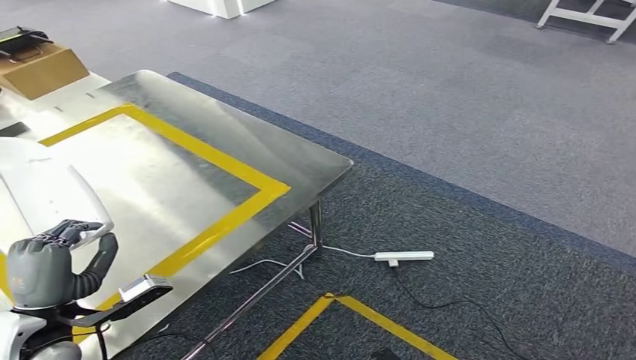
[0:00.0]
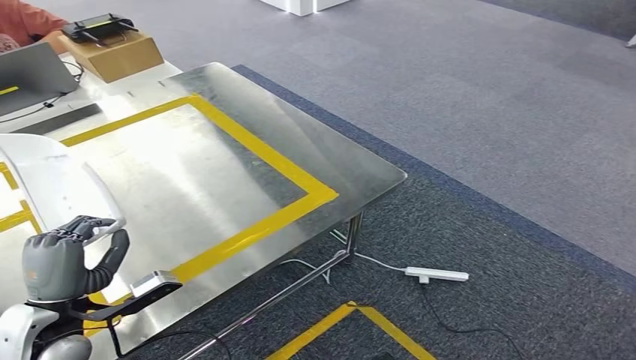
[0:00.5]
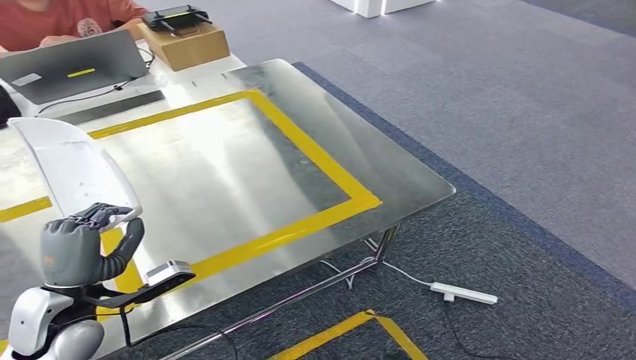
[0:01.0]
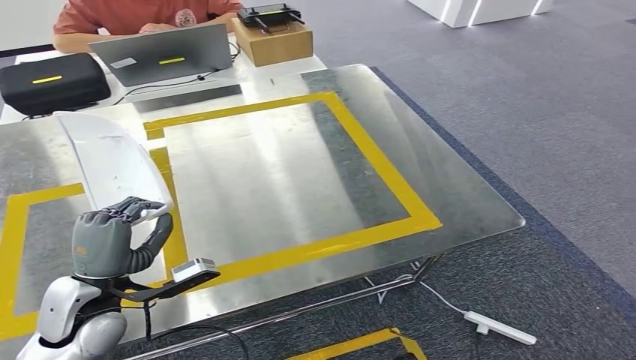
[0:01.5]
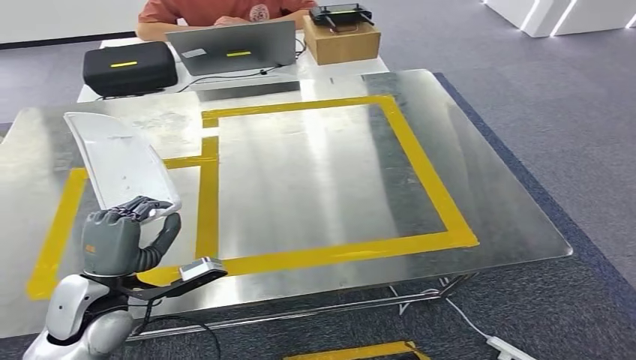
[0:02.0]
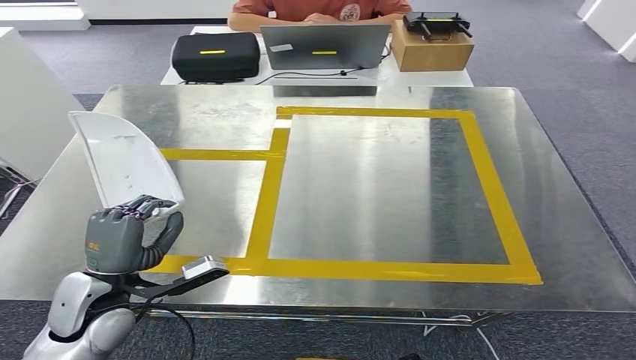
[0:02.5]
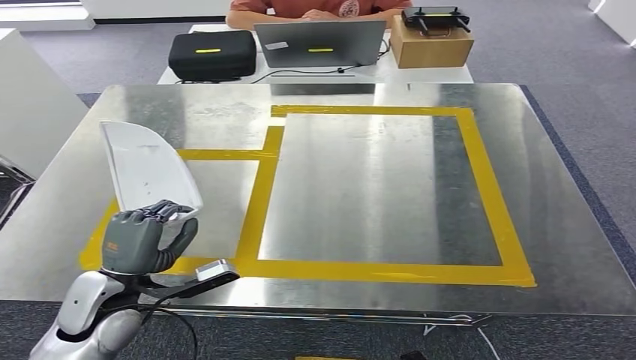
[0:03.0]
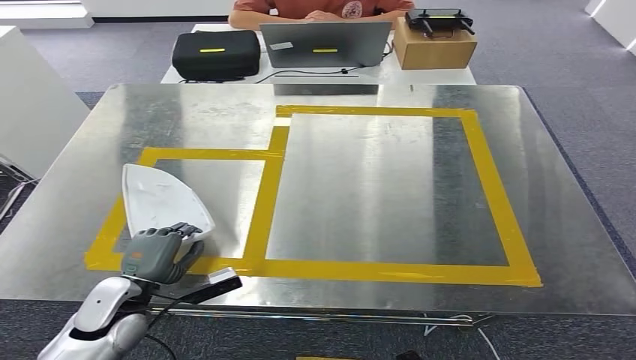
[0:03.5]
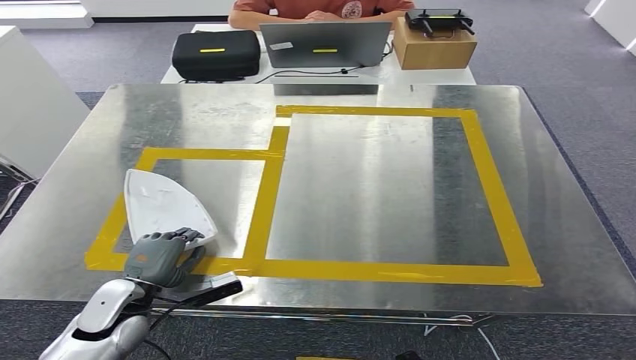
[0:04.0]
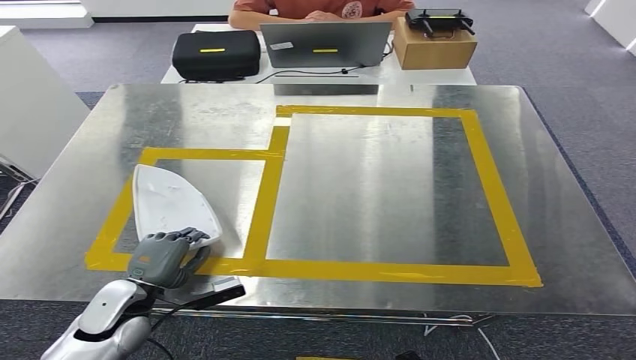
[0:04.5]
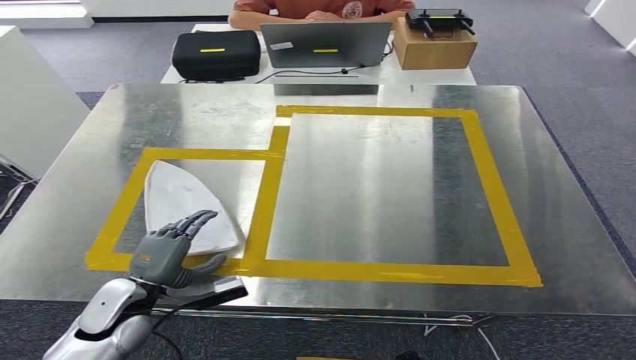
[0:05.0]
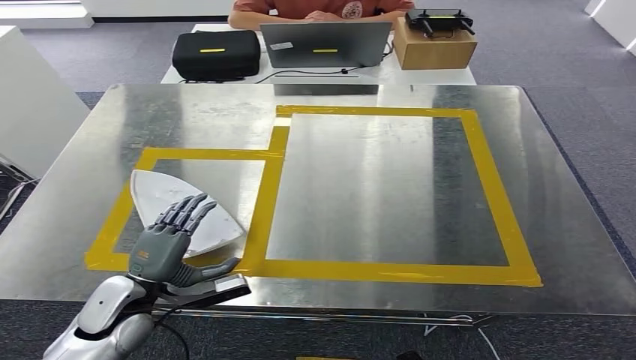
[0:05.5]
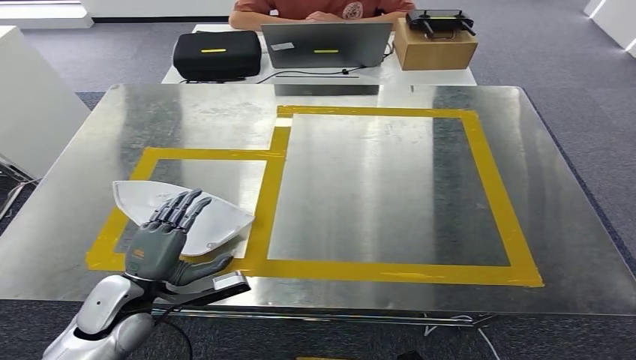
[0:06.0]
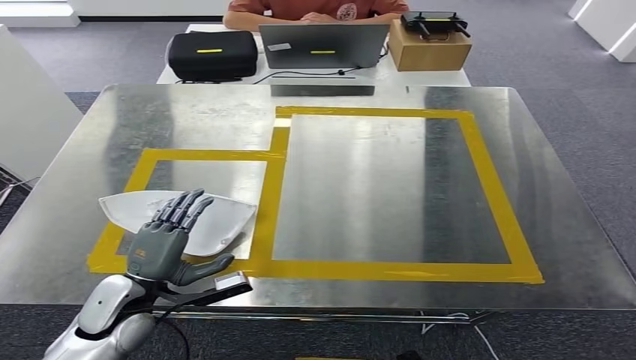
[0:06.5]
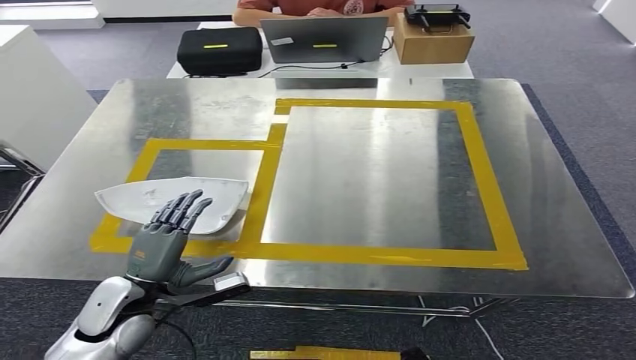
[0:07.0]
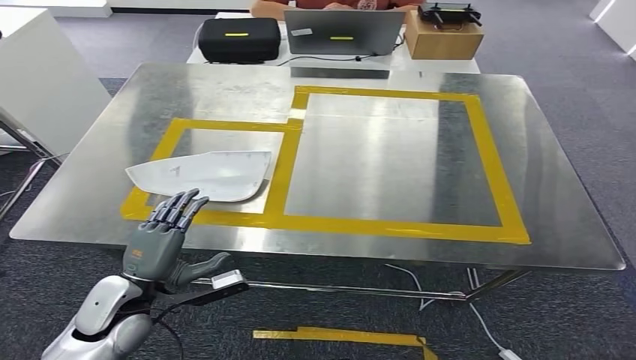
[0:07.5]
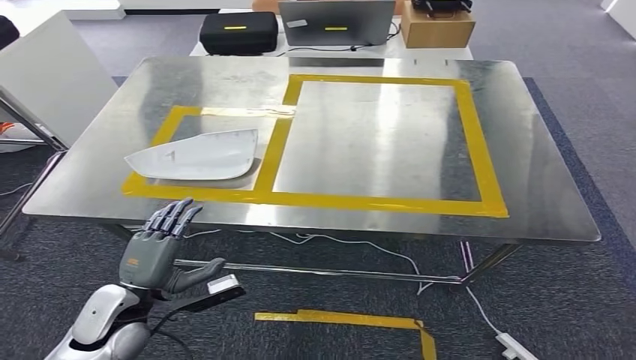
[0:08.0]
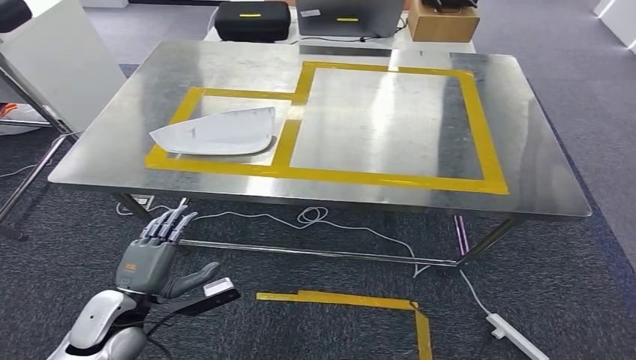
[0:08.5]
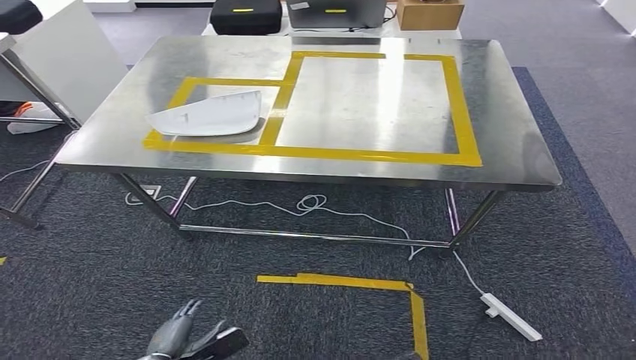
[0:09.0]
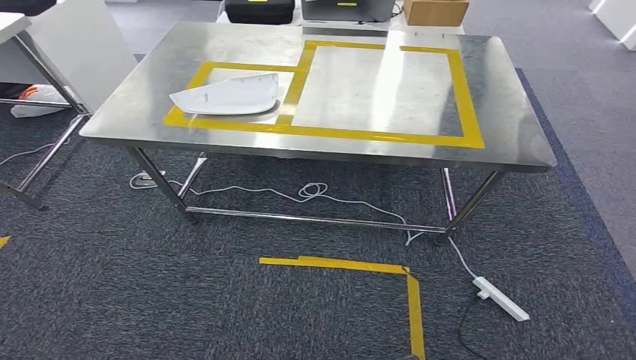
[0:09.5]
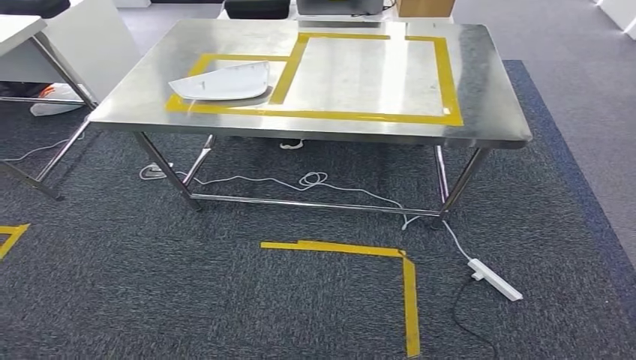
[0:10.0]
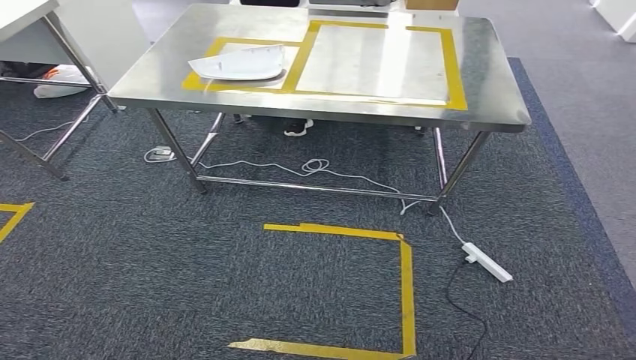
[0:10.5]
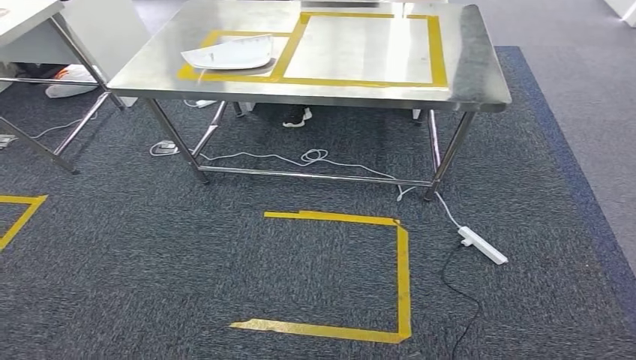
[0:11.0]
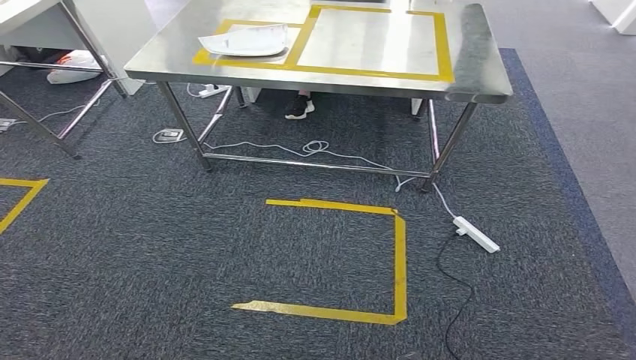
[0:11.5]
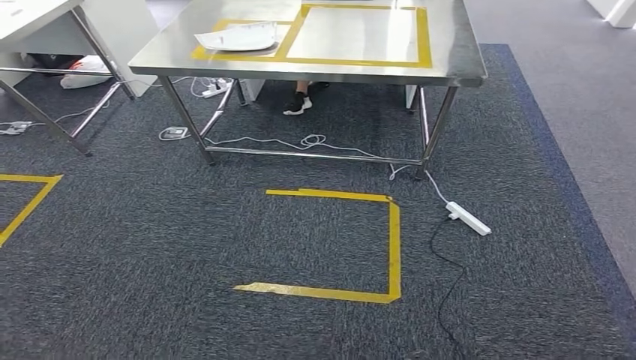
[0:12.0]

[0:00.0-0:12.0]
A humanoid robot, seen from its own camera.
Step, 0:00.0 to 0:03.0: Move the small parts to the workbench.
Step, 0:03.5 to 0:07.0: Insert the small parts into the corresponding holes on the workbench.
0:04.0 to 0:06.0: The hands make only small movements.

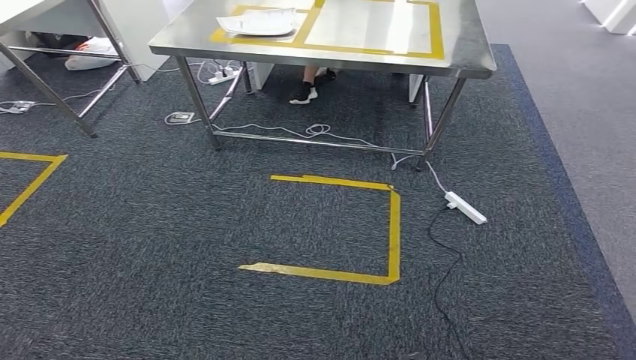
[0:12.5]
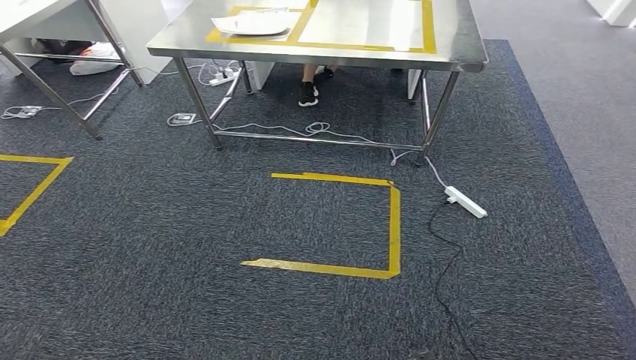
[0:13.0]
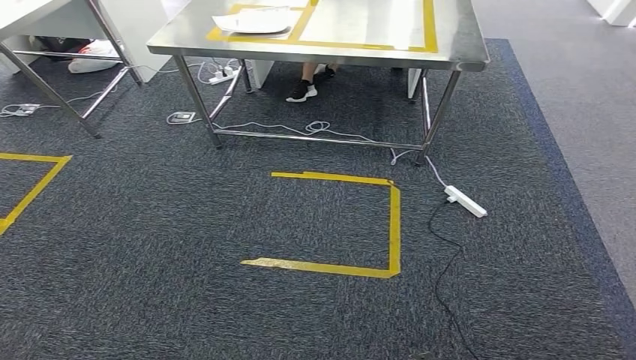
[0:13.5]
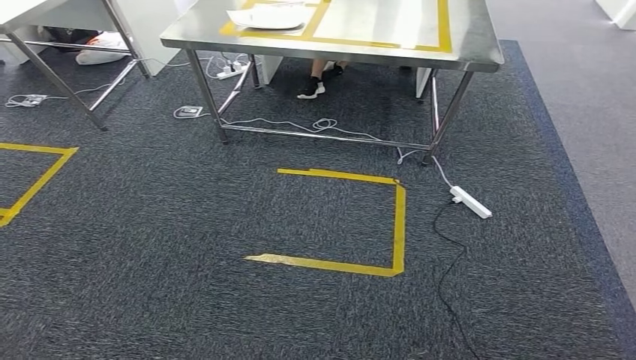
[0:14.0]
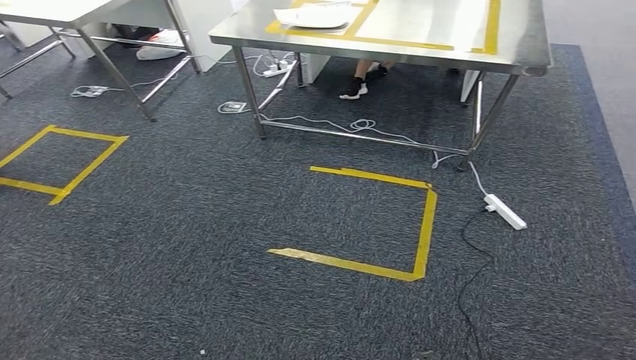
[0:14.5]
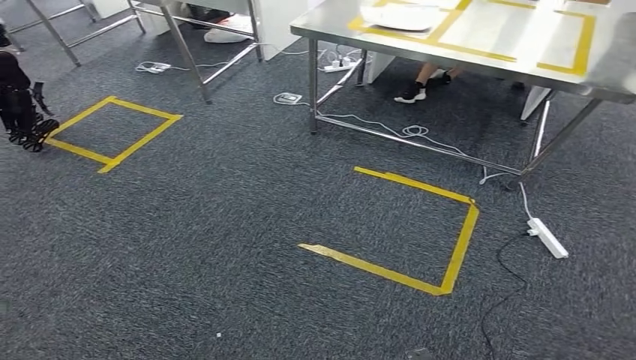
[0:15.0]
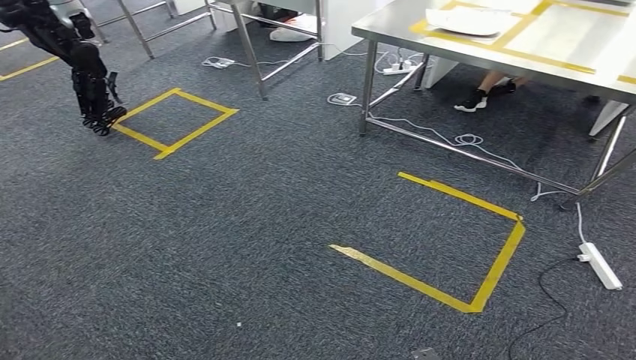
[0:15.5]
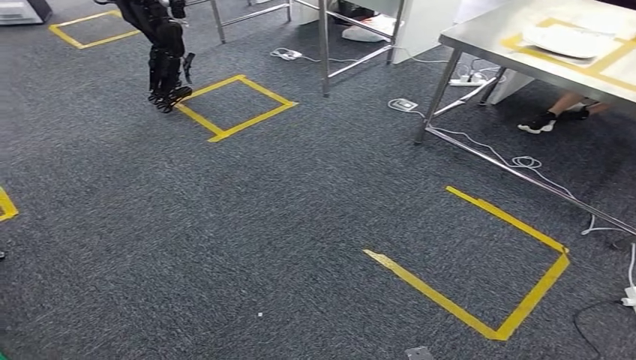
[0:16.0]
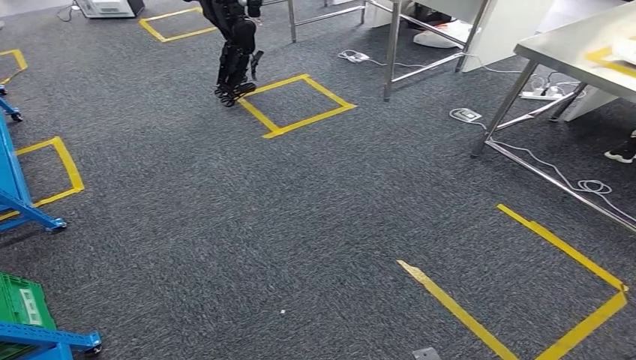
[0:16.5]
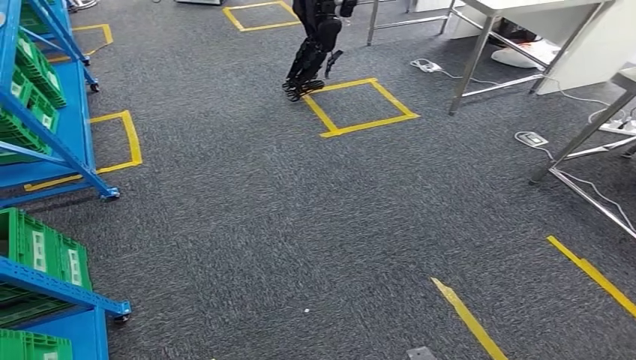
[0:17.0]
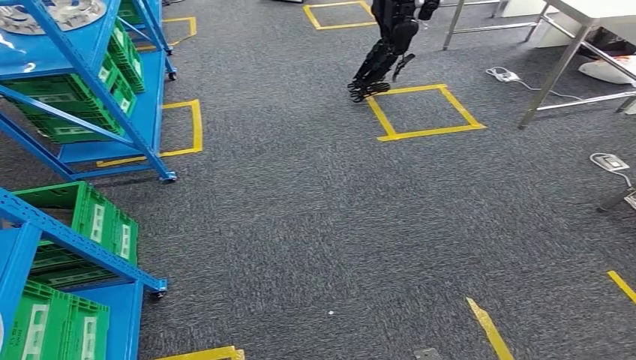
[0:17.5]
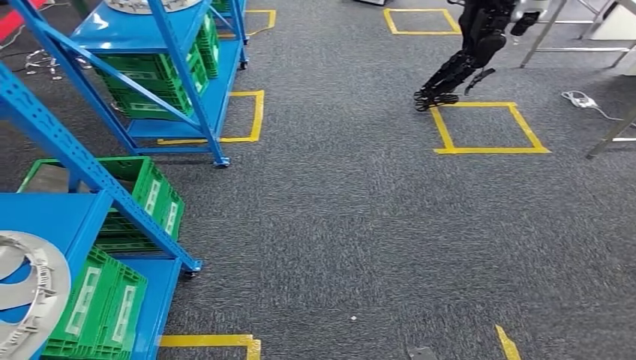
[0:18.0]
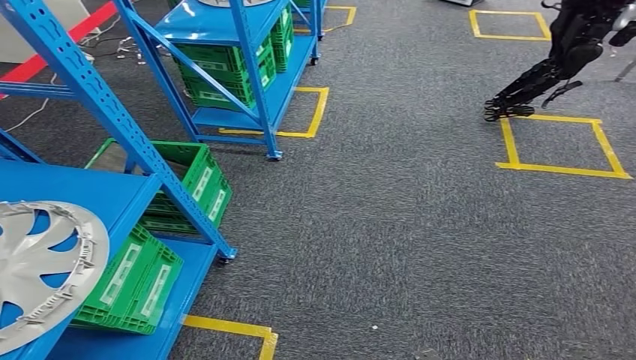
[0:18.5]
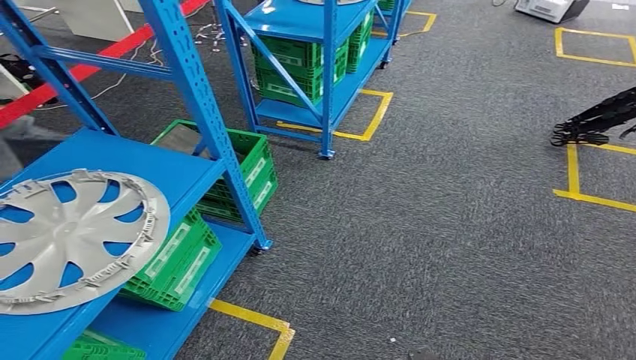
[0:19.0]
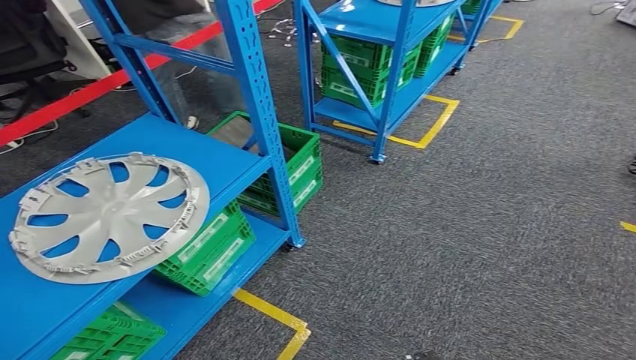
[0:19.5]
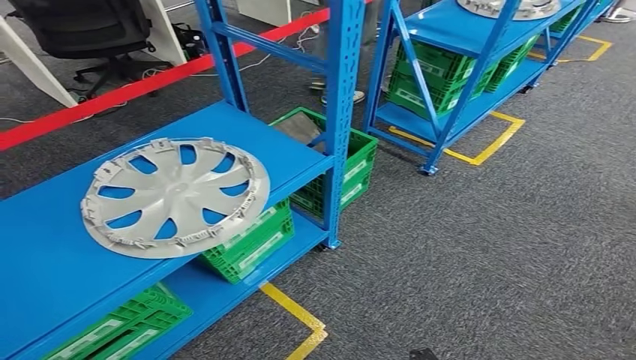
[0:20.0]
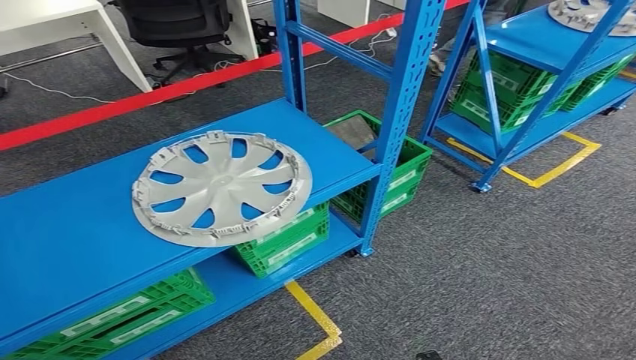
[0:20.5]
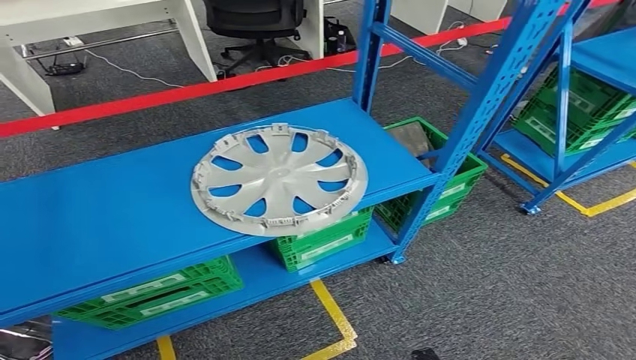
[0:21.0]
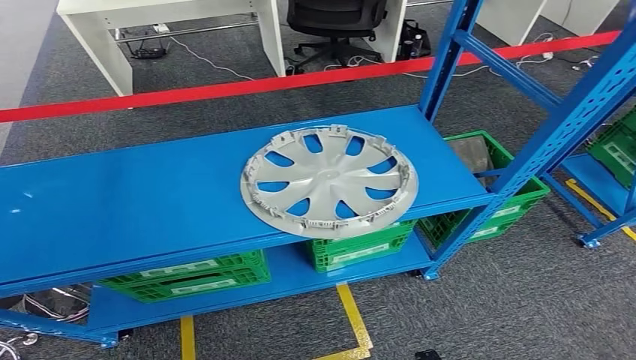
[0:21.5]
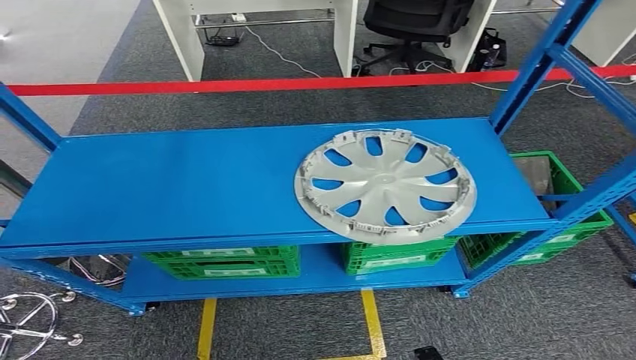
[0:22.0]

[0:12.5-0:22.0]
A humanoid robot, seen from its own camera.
Step, 0:12.5 to 0:22.0: Move to the initial position of the workbench.
